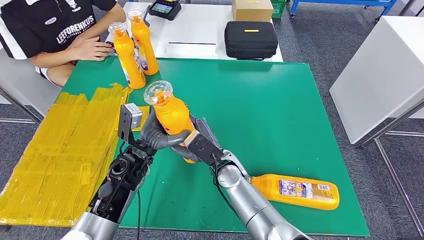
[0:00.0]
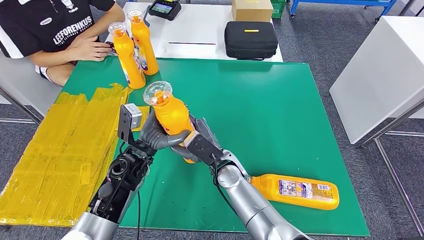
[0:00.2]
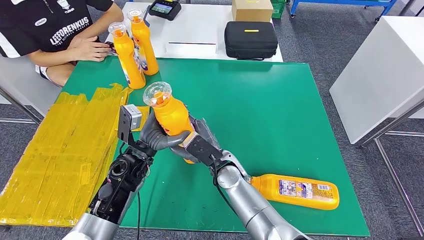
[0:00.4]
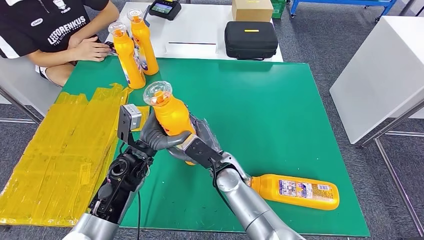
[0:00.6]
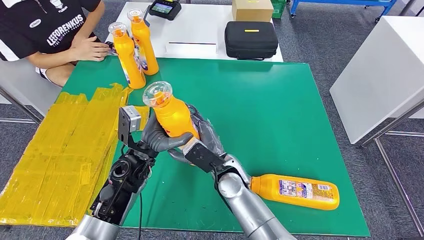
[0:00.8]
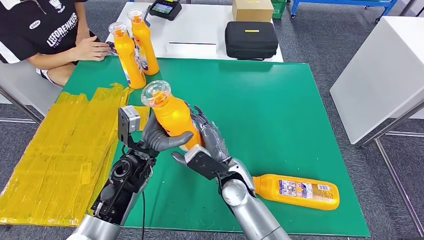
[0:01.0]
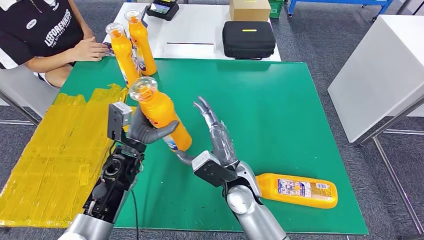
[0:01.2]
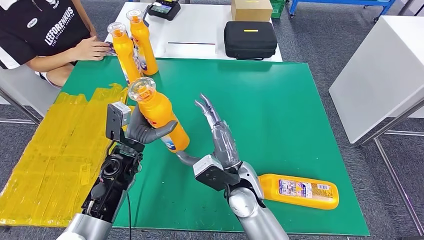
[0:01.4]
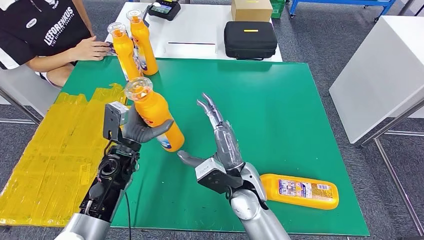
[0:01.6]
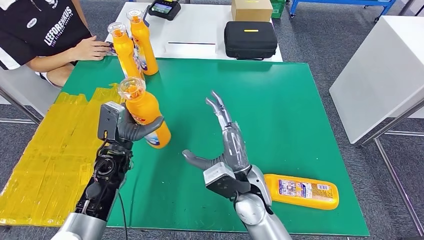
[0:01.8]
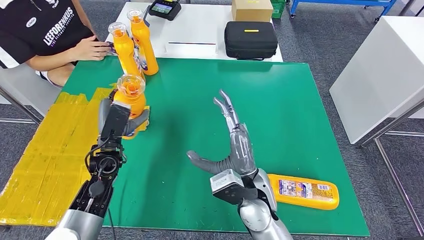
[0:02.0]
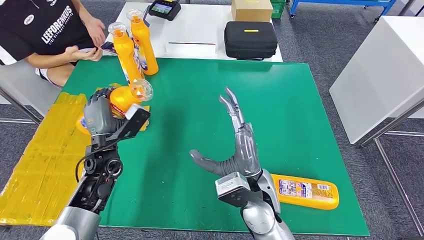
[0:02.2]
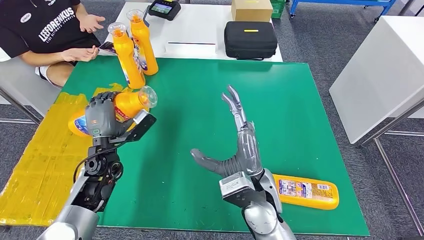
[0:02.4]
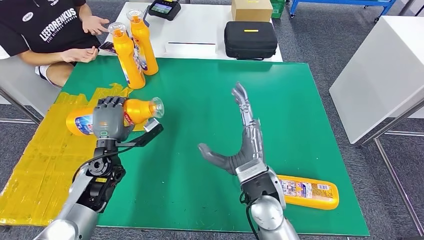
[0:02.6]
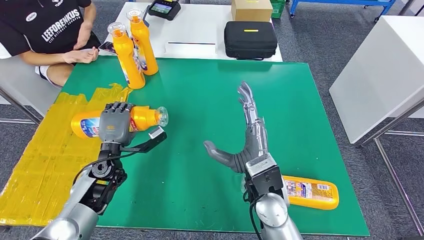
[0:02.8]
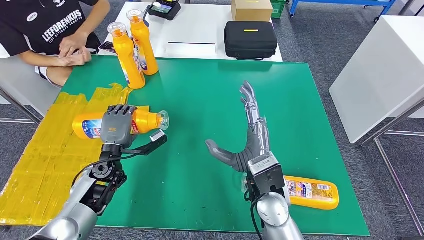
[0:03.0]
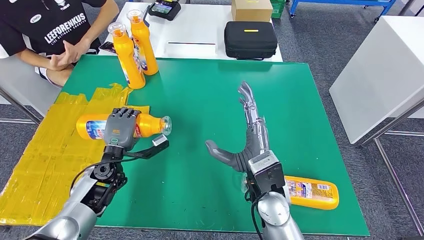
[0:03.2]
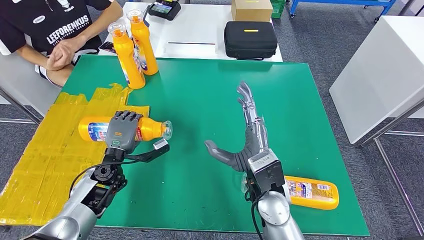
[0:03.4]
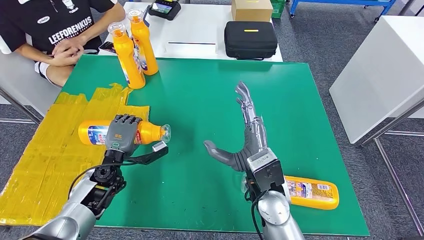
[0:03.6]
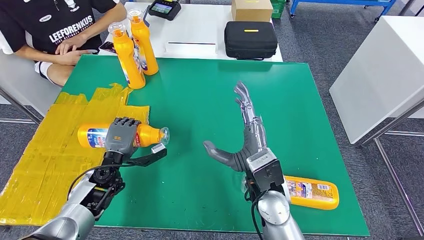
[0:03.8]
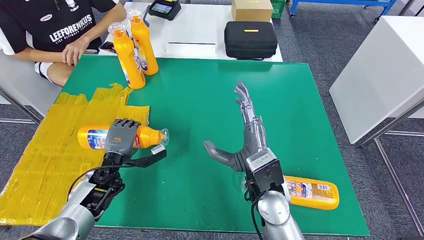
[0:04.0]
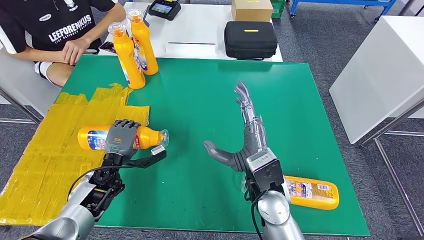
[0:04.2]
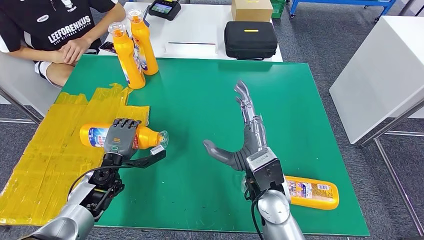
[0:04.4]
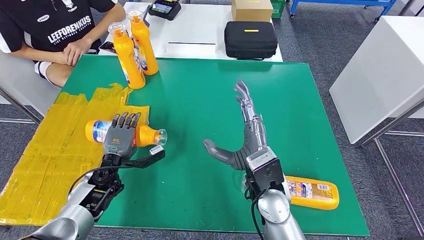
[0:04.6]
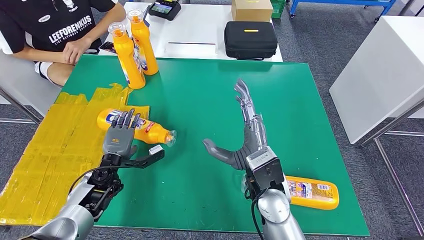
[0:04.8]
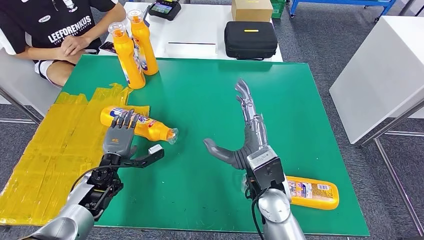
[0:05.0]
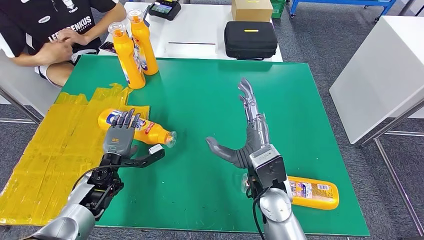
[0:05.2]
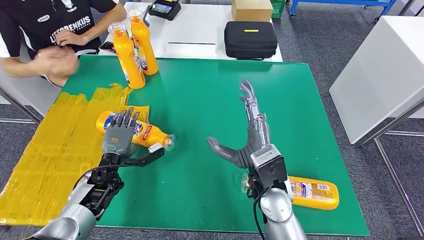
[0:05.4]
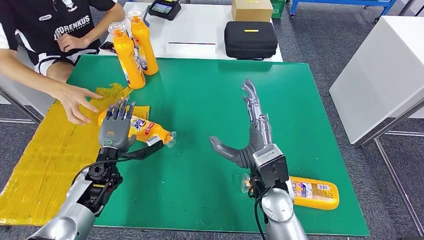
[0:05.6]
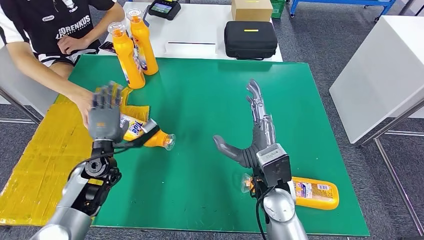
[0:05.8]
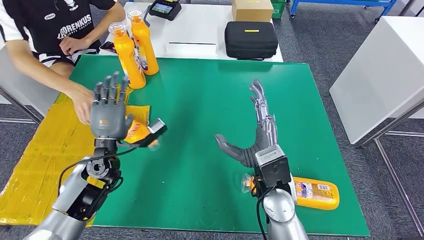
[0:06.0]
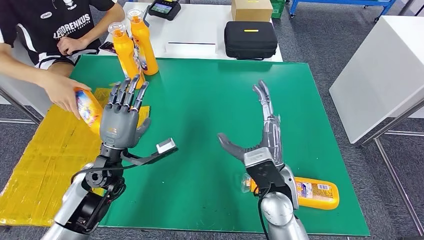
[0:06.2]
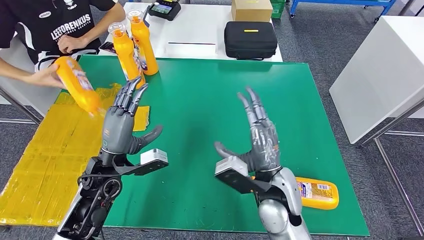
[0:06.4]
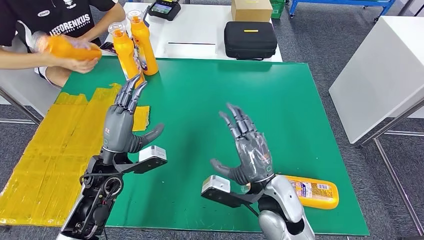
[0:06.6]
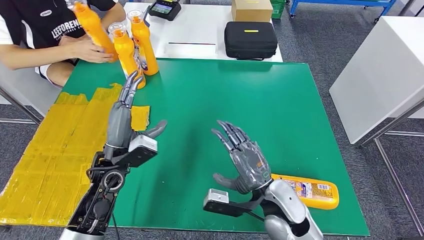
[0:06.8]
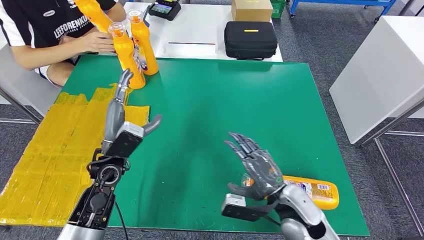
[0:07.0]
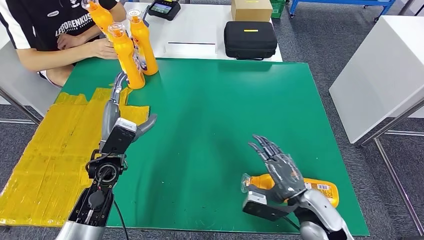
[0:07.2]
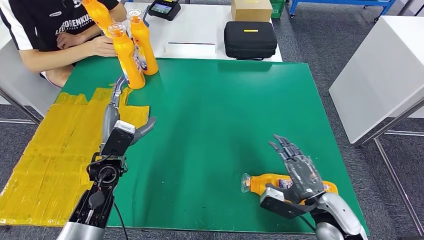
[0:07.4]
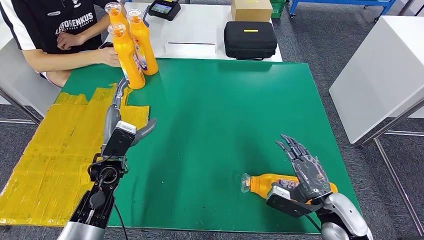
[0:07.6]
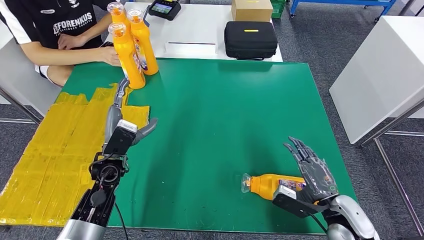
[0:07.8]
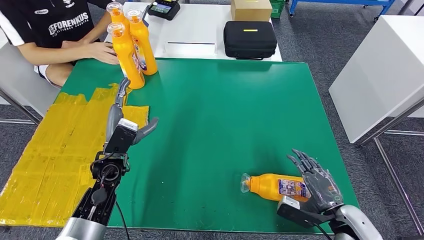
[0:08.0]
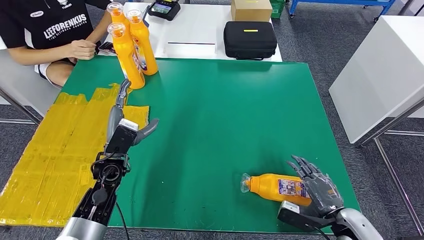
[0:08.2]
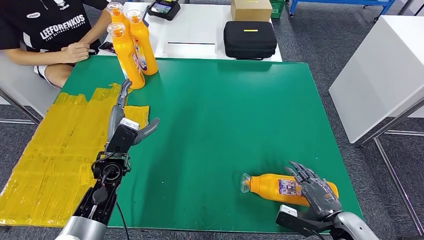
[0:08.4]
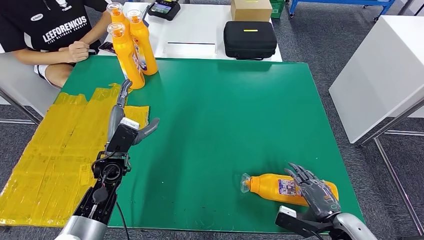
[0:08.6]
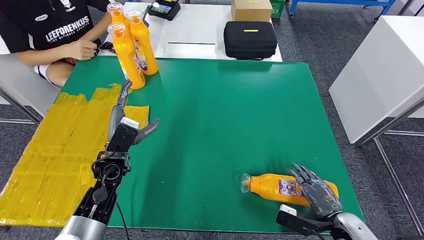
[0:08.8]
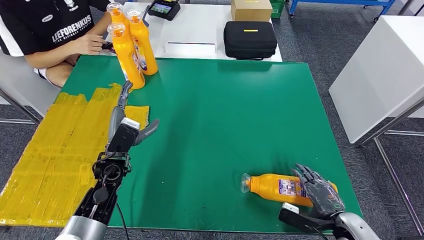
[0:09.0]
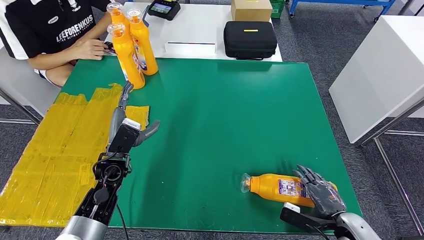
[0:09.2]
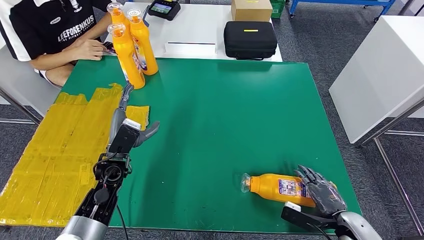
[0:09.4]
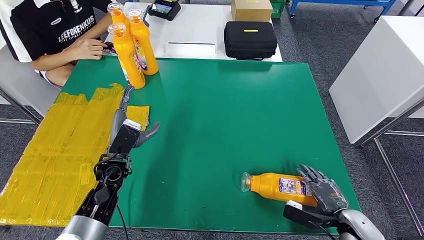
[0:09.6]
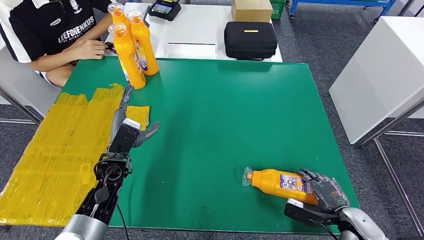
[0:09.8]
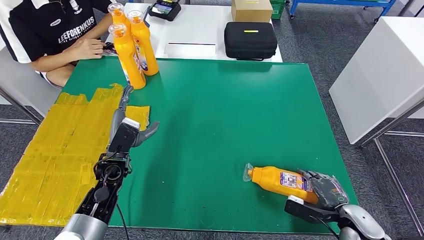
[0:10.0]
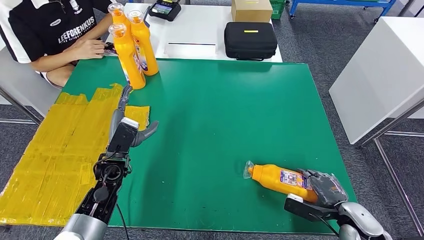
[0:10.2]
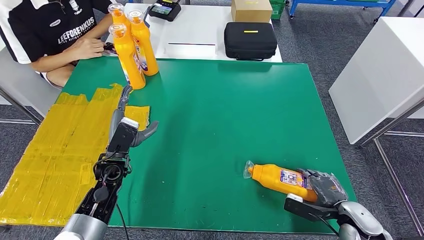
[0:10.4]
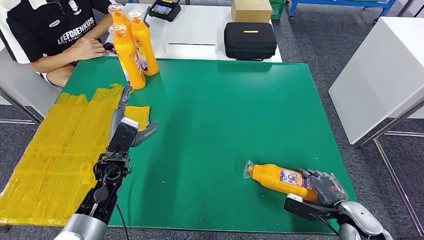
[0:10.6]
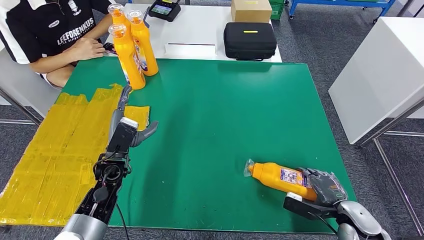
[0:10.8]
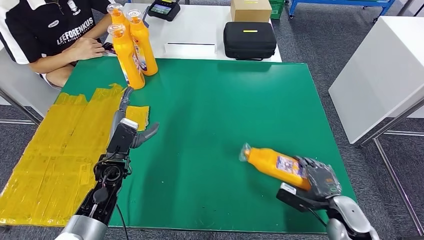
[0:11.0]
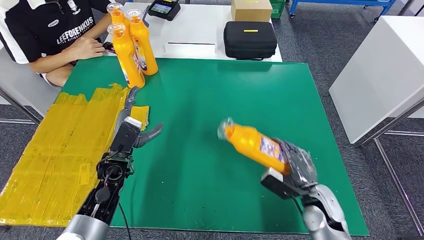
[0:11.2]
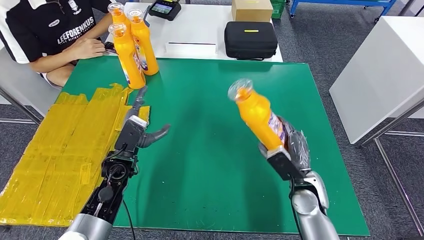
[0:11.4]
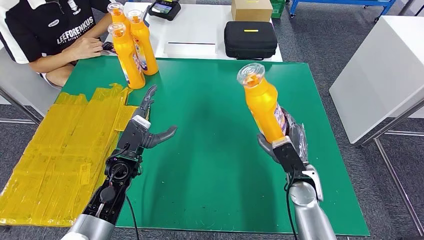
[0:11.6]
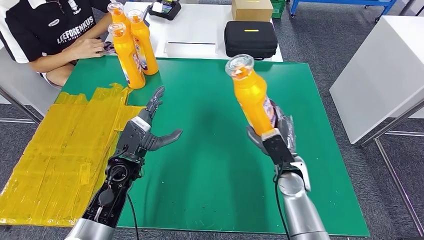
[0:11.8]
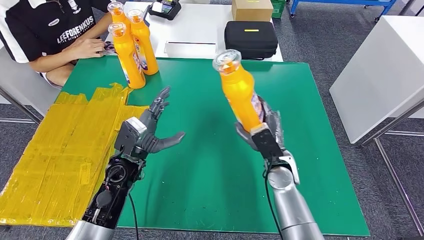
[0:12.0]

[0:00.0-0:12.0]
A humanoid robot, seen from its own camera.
Step, 0:00.0 to 0:05.6: Flip the bottle to face forward.
0:00.0 to 0:01.6: The right hand changes place by roughly 5 cm.
0:01.6 to 0:03.0: The left hand is displaced to the left by roughly 5 cm; the right hand shifts by some 5 cm.
0:03.0 to 0:04.4: The hands make only small movements.
0:04.4 to 0:06.0: The left hand heads upward, covering about 10 cm.
0:07.6 to 0:09.0: The right hand heads backward, covering about 5 cm.
0:09.0 to 0:10.4: The hands move only a little.

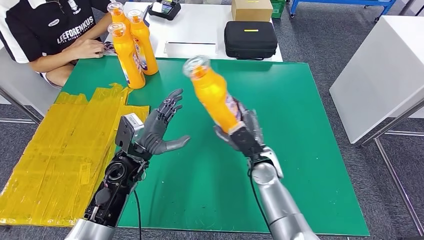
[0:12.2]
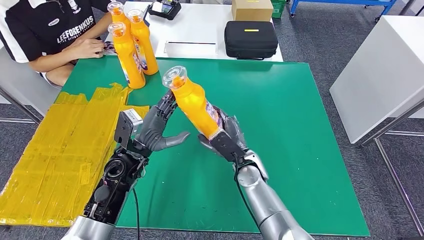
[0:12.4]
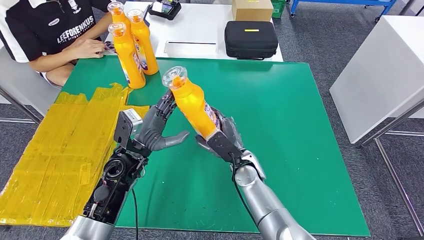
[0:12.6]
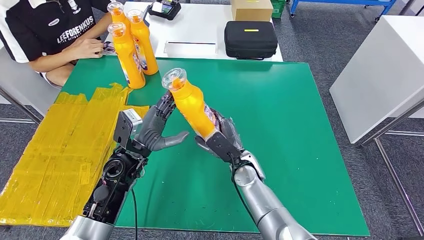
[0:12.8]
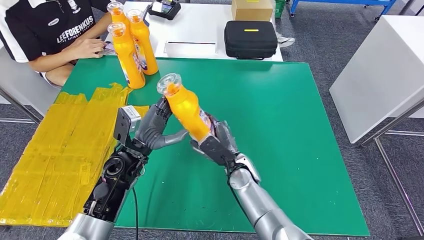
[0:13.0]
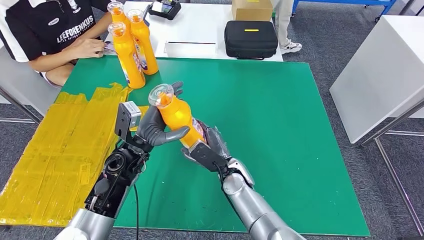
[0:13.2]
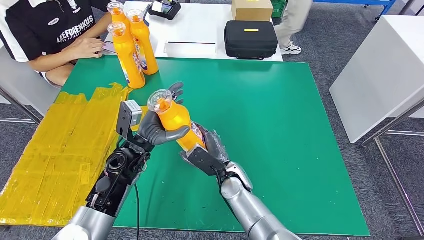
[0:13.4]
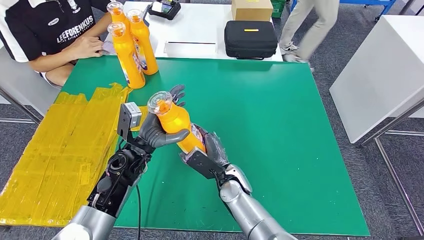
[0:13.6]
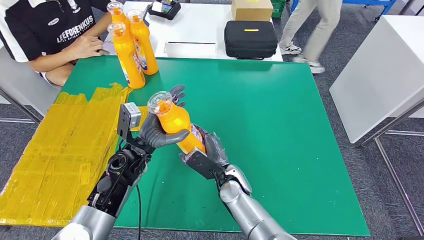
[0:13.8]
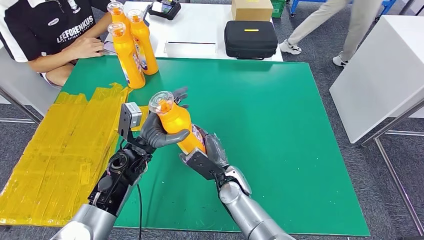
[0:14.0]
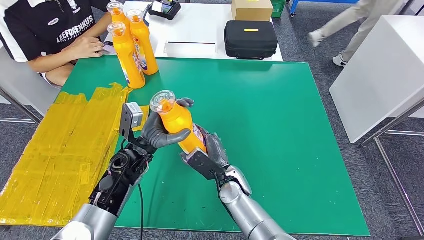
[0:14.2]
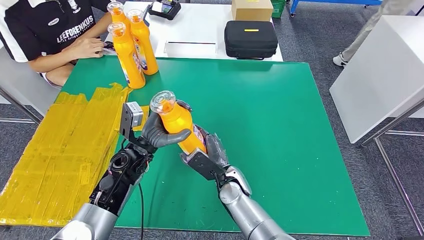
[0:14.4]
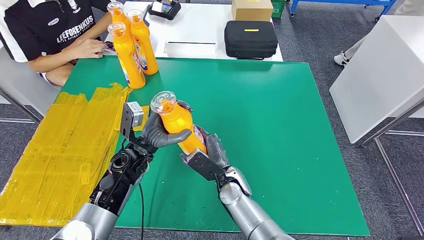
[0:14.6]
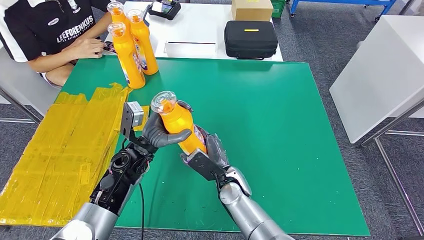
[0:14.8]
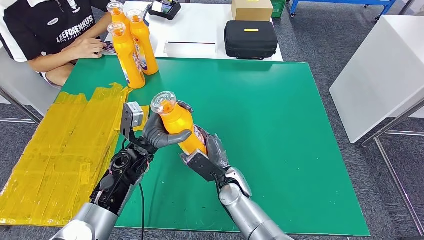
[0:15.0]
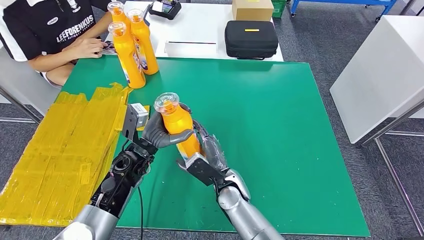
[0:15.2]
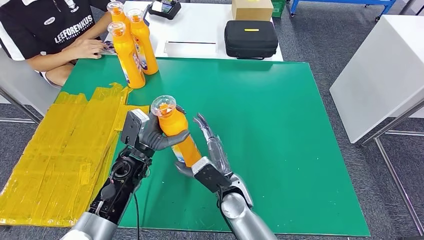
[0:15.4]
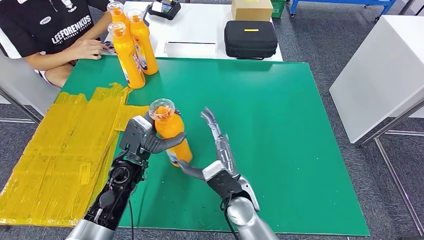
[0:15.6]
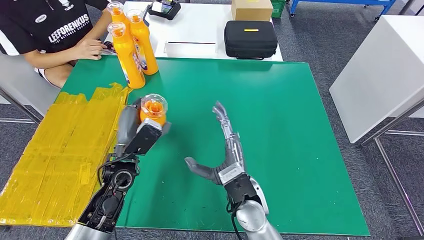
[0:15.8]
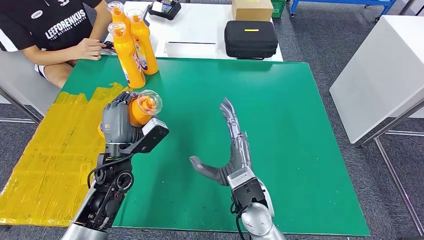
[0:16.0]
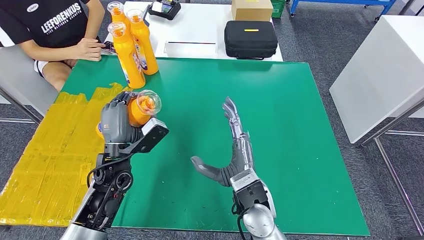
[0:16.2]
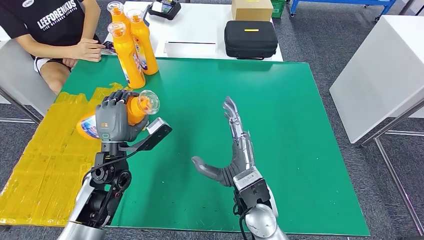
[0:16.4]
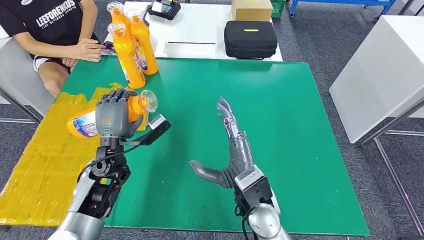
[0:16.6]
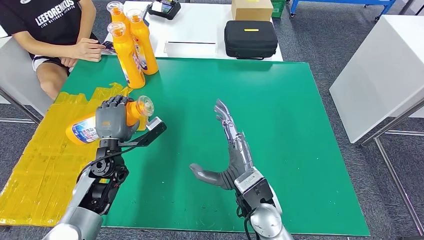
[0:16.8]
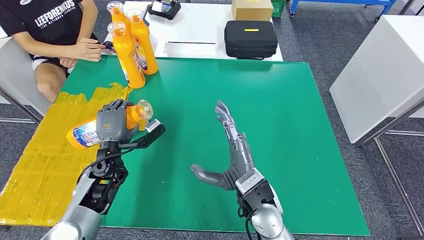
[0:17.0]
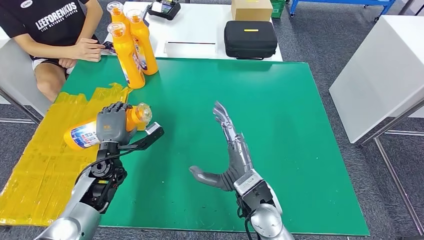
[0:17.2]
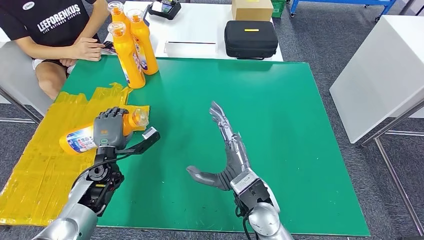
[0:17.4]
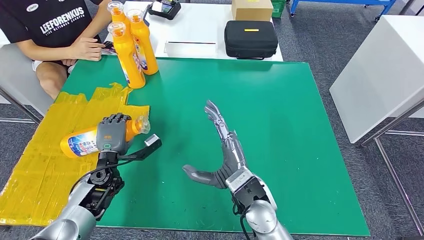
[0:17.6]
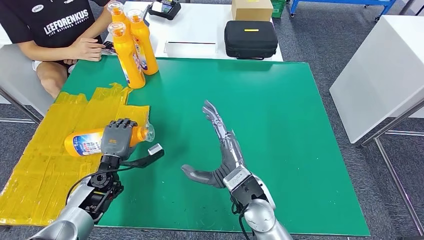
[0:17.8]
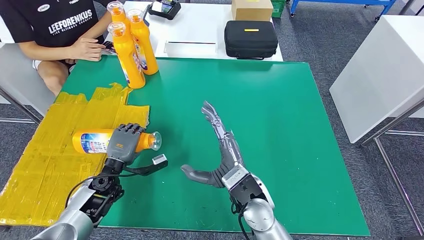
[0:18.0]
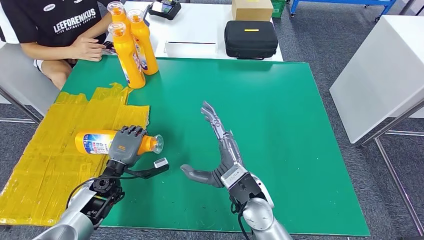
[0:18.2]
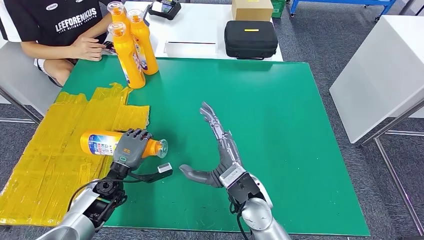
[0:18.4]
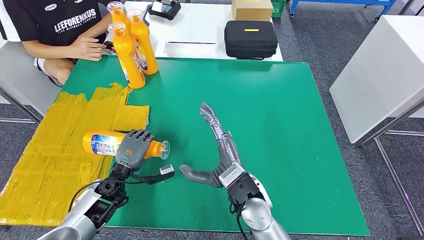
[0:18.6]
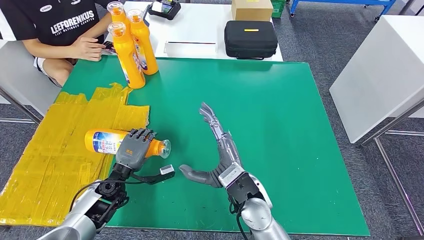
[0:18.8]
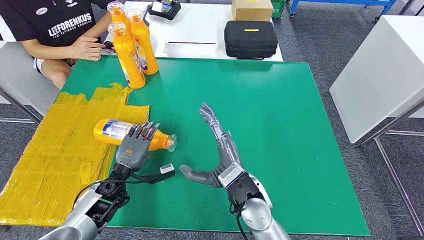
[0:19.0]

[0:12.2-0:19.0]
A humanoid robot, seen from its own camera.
Step, 0:13.6 to 0:19.0: Flip the bottle to face forward.
0:12.2 to 0:13.6: The right hand travels to the left by some 10 cm.
0:13.6 to 0:15.0: Neither hand changes place.
0:15.0 to 0:16.2: The right hand moves upward, some 10 cm.
0:16.2 to 0:17.6: The left hand heads downward and to the left, covering some 10 cm.
